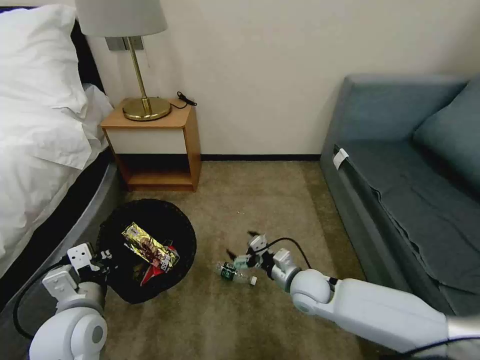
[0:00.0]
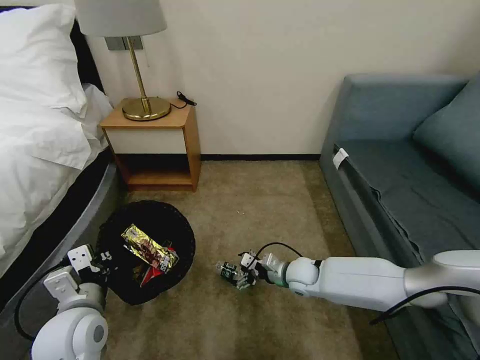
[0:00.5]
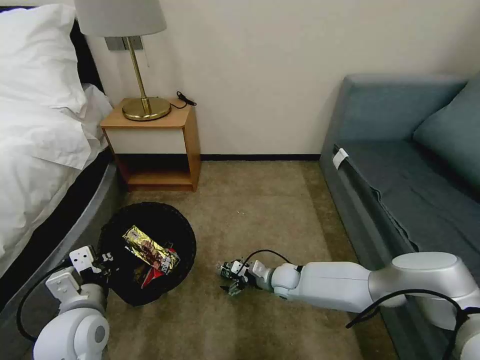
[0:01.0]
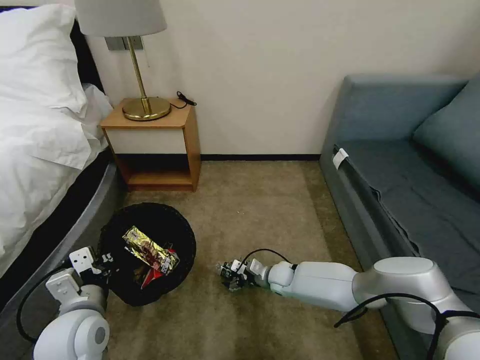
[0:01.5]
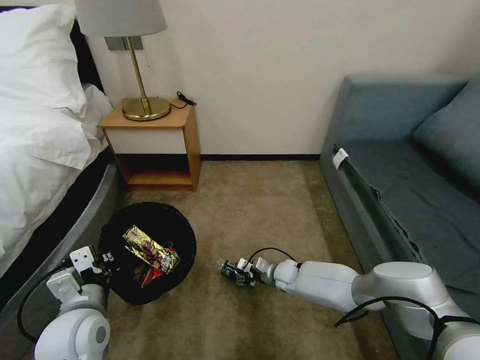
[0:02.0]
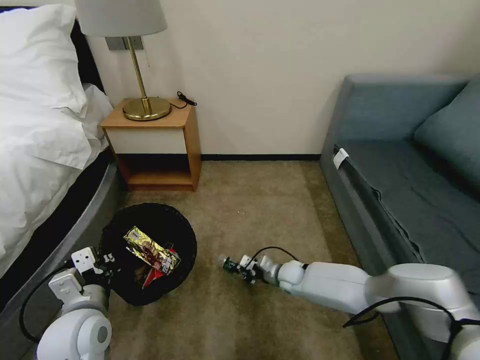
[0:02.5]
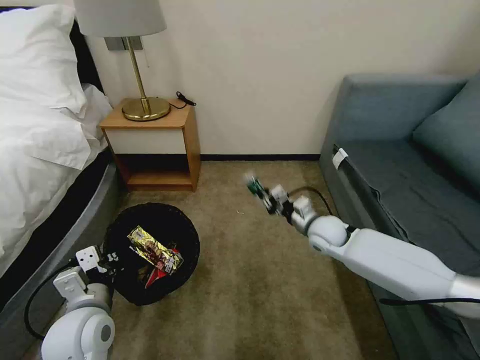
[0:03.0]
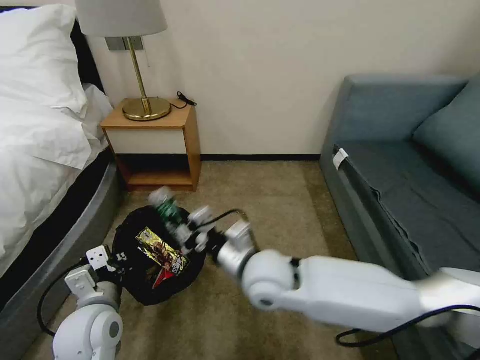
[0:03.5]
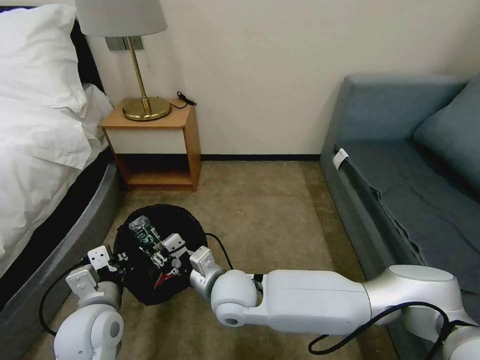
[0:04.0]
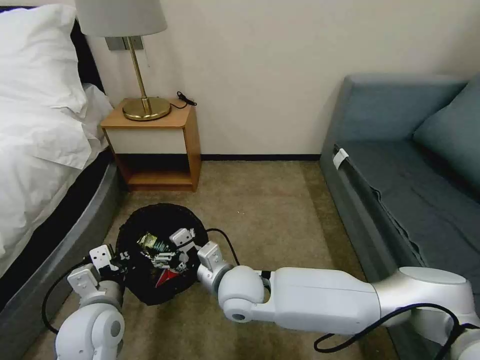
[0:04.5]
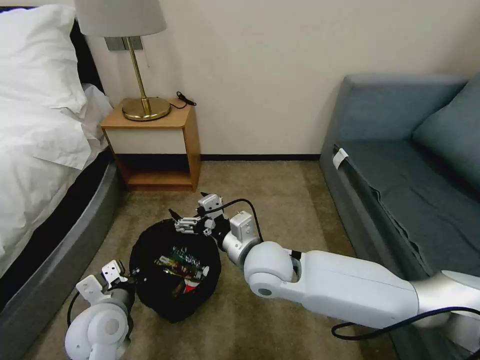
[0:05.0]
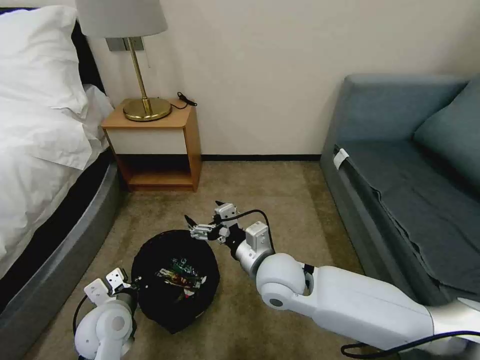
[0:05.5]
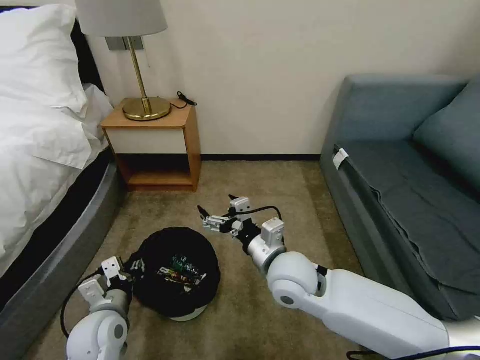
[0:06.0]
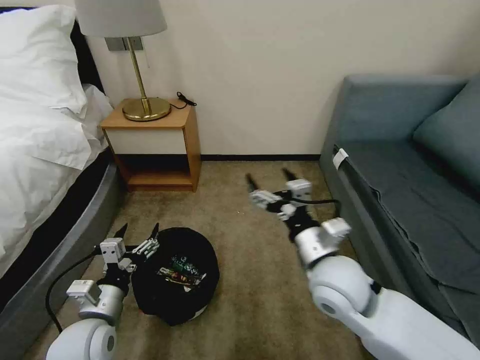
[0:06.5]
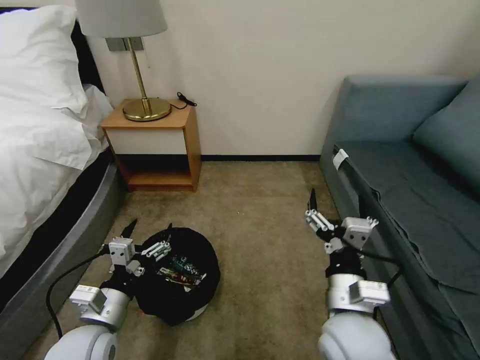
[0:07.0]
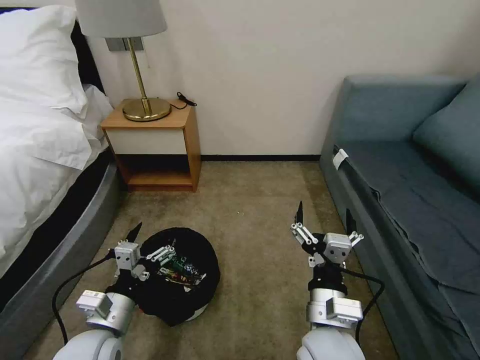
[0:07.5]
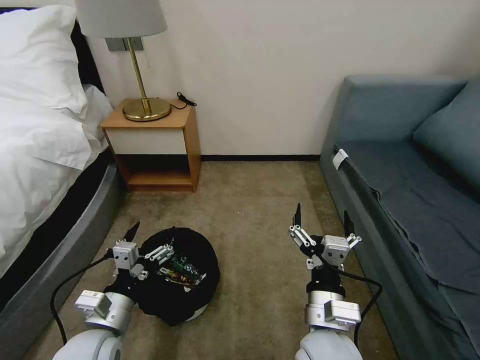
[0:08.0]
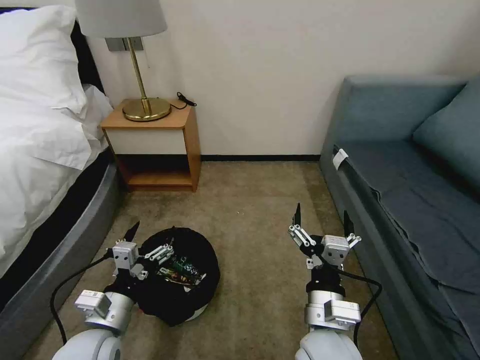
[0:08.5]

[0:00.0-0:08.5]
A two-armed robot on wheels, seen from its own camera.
Task of the whole recording: Pick up the trash bin, then pick up the garbage on the floor and place it into the trash bin.
0:00.0 to 0:02.0: The right gripper is displaced downward and forward by approximately 15 cm, and closes.
0:02.0 to 0:04.0: The right gripper moves upward, to the left and backward, roughly 35 cm.
0:04.0 to 0:06.5: The right gripper heads to the right and upward, covering roughly 20 cm, and opens up; the left gripper opens up.
0:06.5 to 0:08.5: The right gripper moves backward and downward, roughly 10 cm.

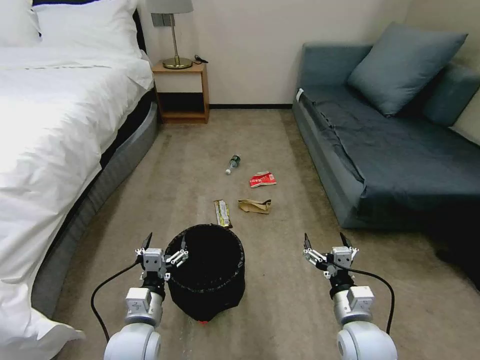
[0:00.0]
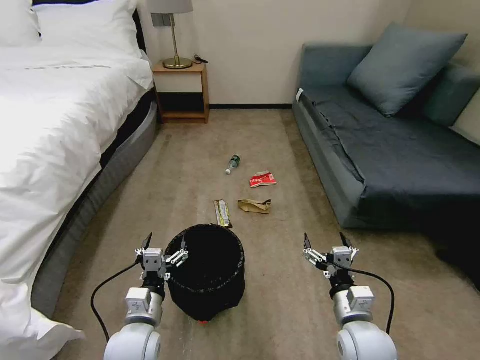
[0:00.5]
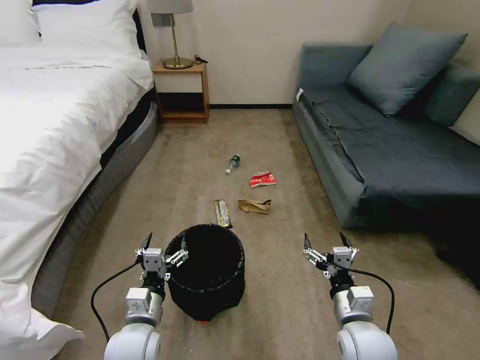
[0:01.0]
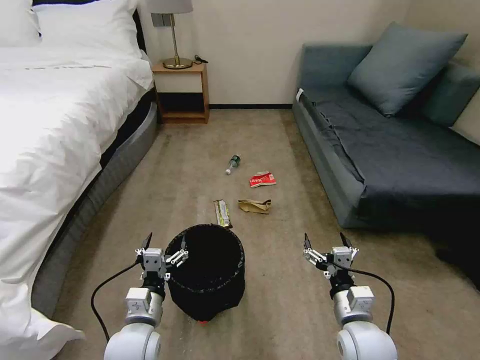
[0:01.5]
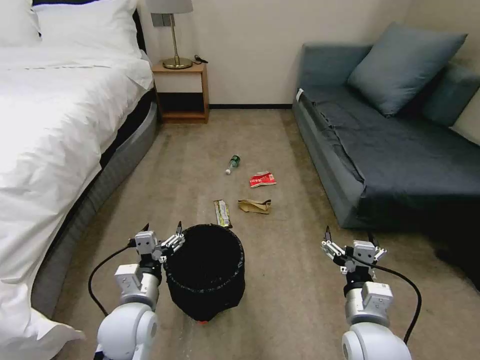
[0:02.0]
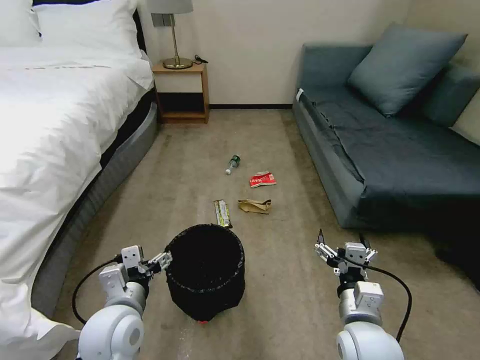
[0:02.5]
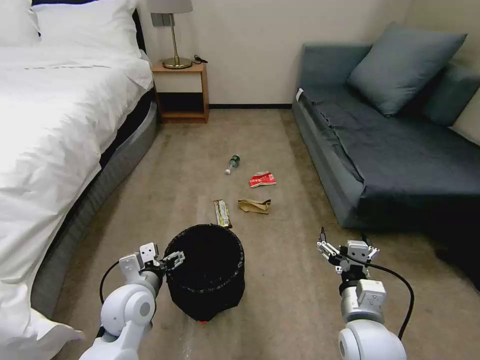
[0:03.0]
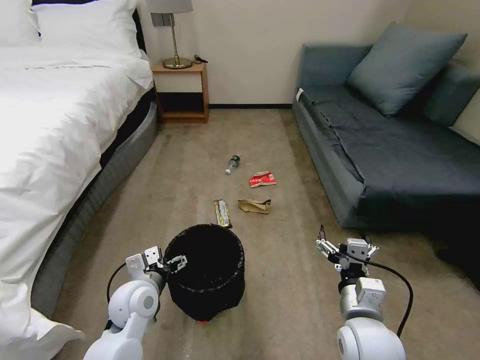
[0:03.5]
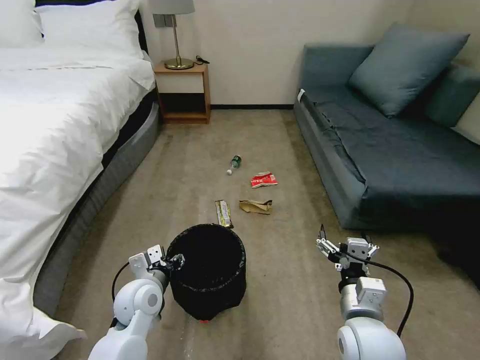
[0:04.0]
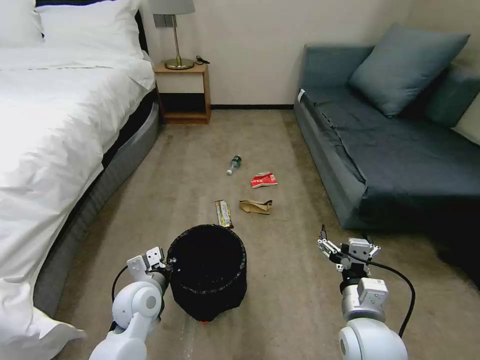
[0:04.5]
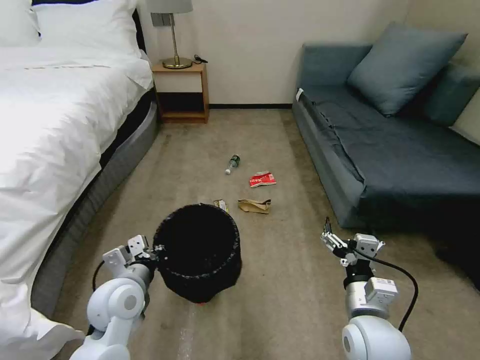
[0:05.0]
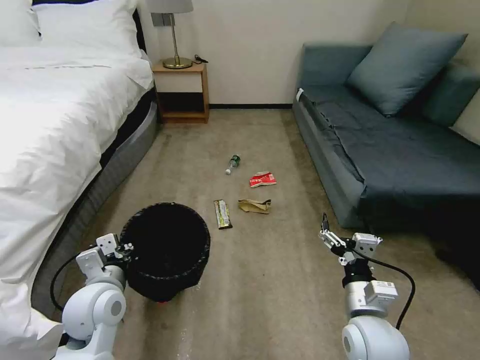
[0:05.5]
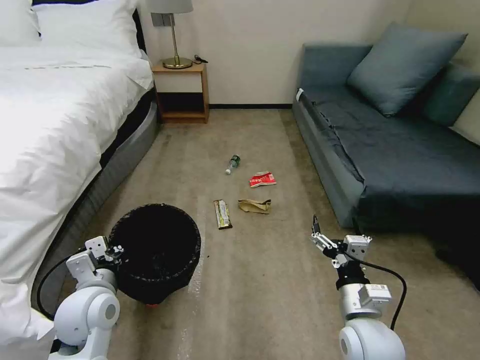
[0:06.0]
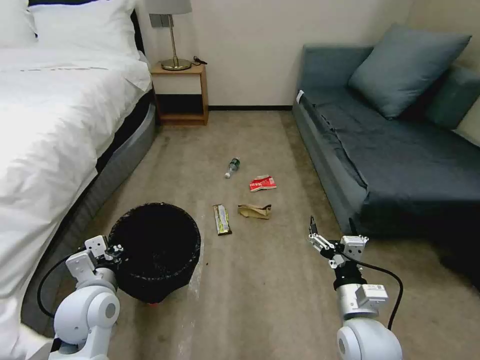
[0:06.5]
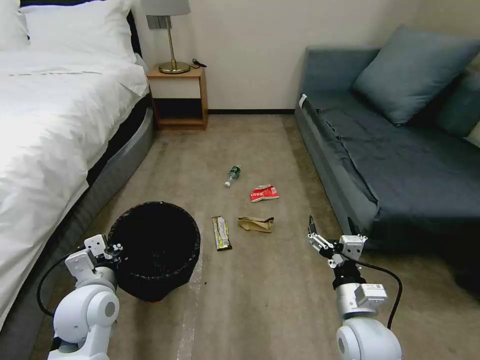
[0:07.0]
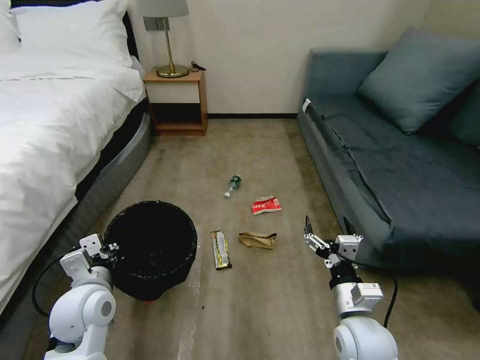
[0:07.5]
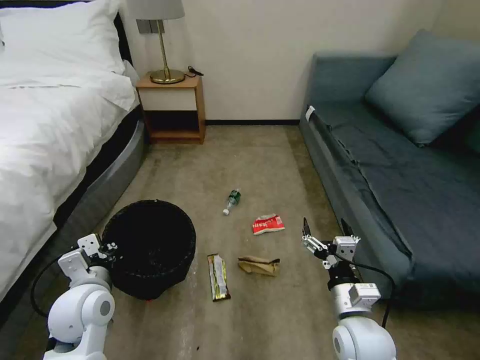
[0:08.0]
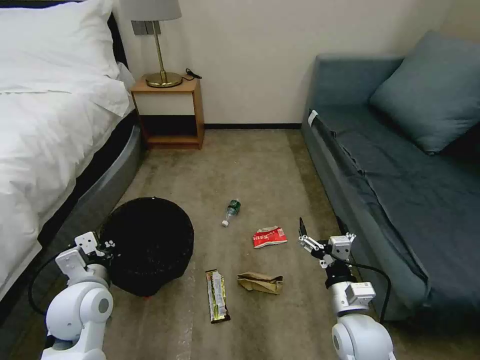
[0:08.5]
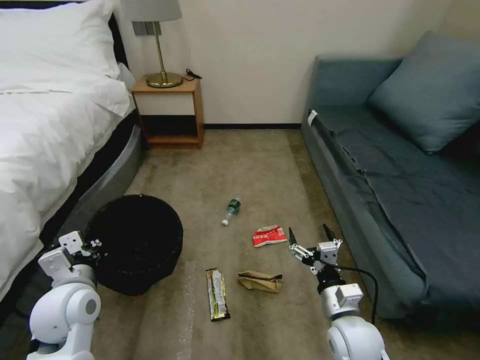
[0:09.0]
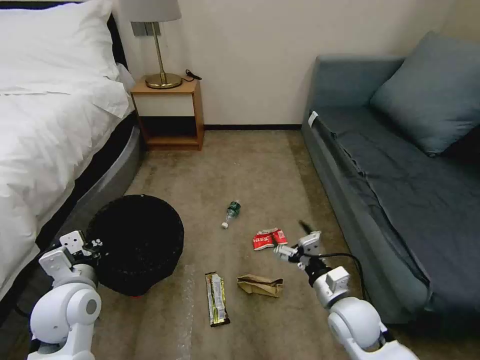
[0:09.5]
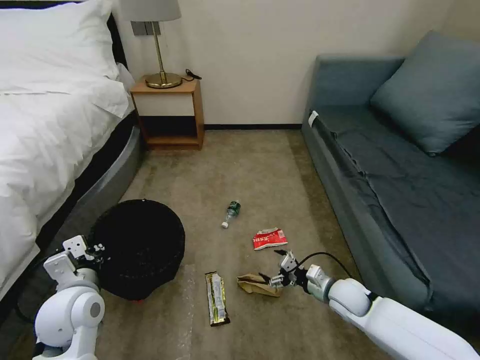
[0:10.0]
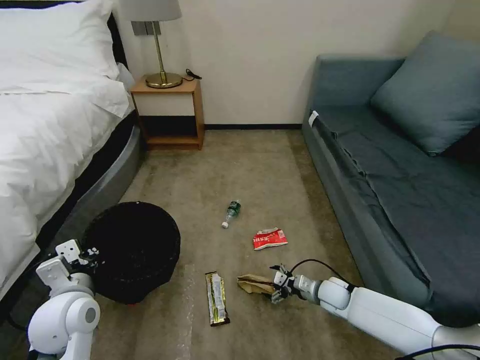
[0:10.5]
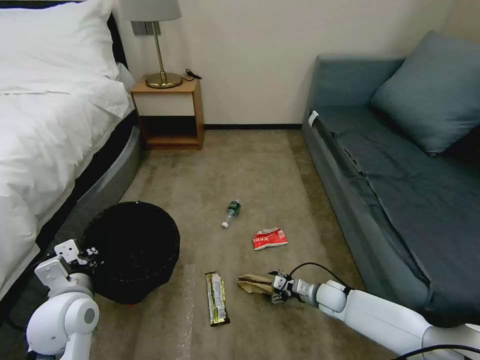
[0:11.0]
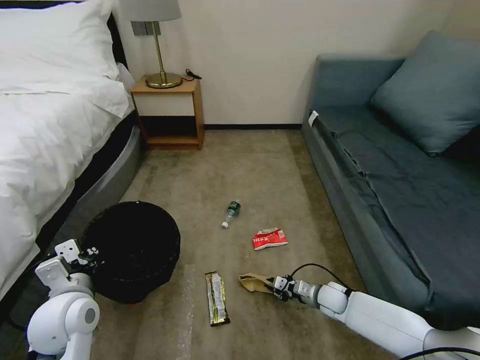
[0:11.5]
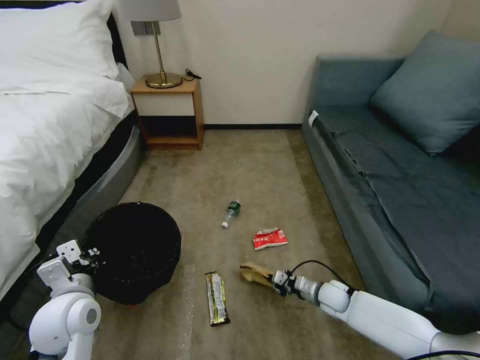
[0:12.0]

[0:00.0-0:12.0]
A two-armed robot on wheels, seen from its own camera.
Task of the whole recording: Pick up the trash bin, then pick up the garbage on the floor and place it into the trash bin.
0:02.0 to 0:04.0: The left gripper heads forward, covering approximately 5 cm, and closes up.
0:04.0 to 0:06.0: The left gripper goes approximately 10 cm upward and to the left, and closes its fingers.
0:08.0 to 0:10.0: The right gripper heads forward, downward and to the right, covering about 15 cm.
0:10.0 to 0:12.0: The right gripper moves downward, approximately 10 cm, and closes its fingers.

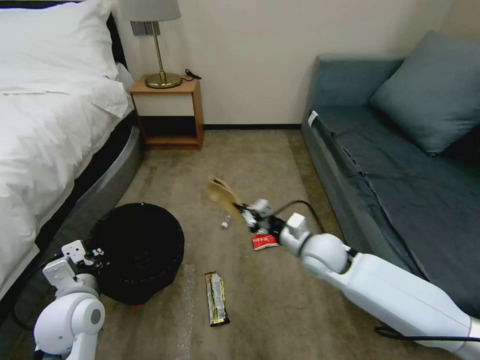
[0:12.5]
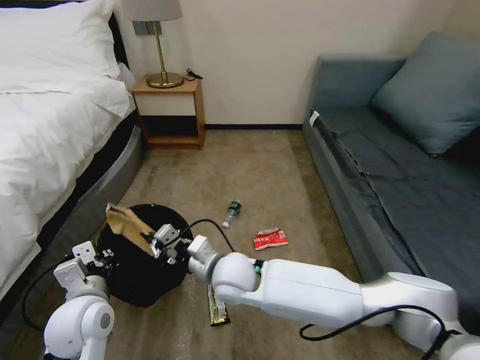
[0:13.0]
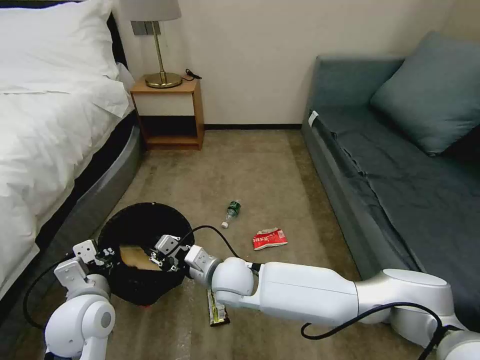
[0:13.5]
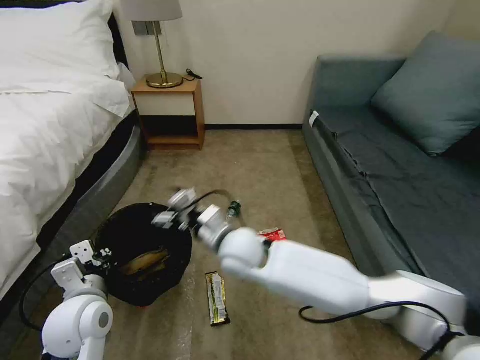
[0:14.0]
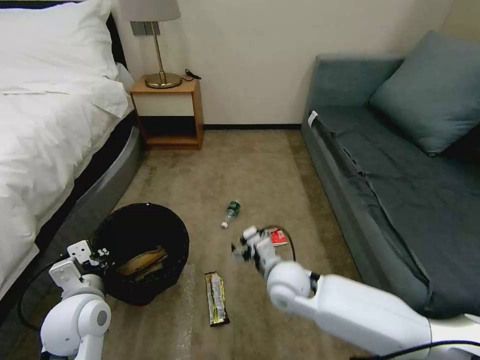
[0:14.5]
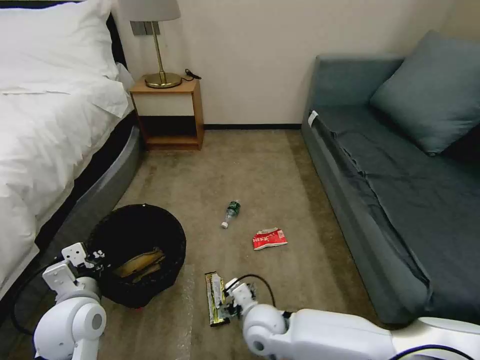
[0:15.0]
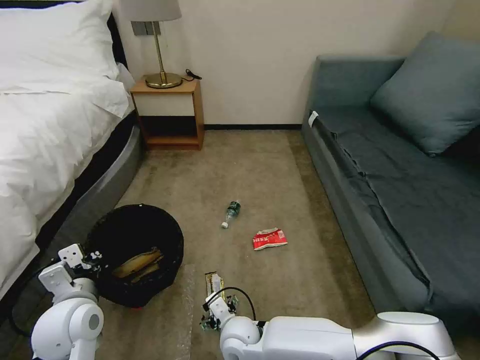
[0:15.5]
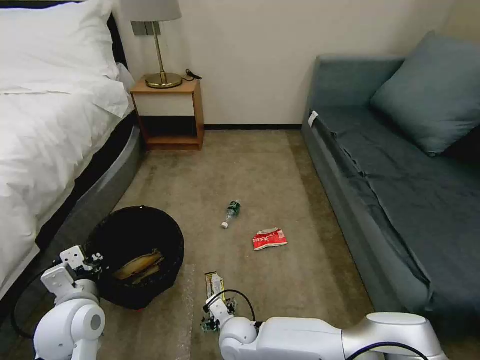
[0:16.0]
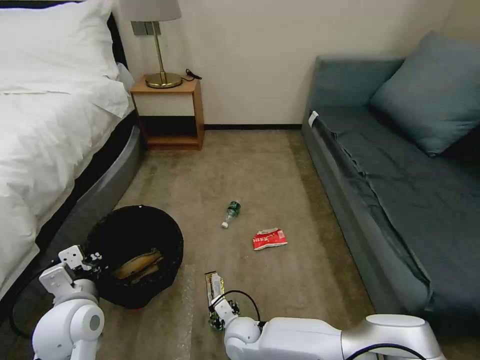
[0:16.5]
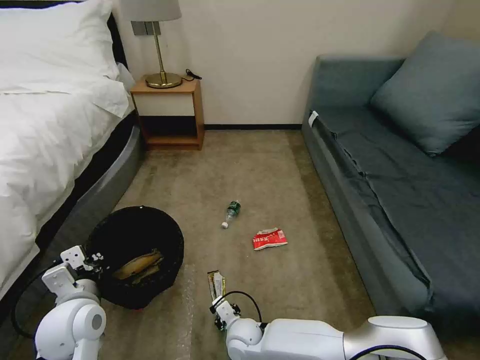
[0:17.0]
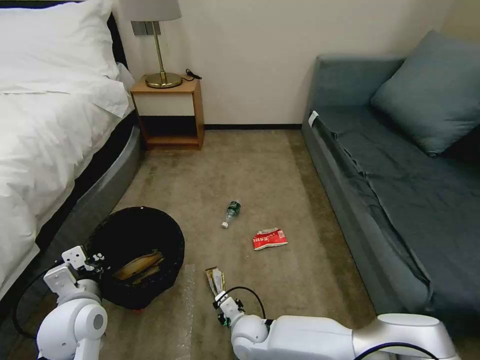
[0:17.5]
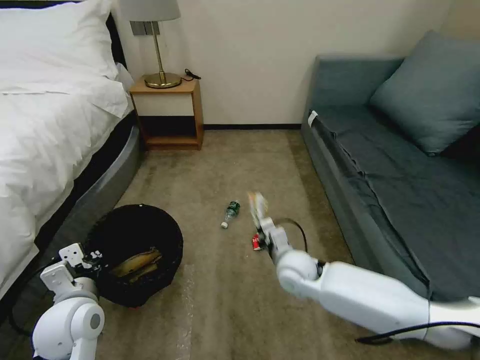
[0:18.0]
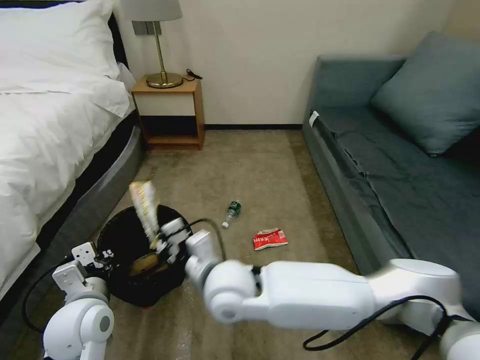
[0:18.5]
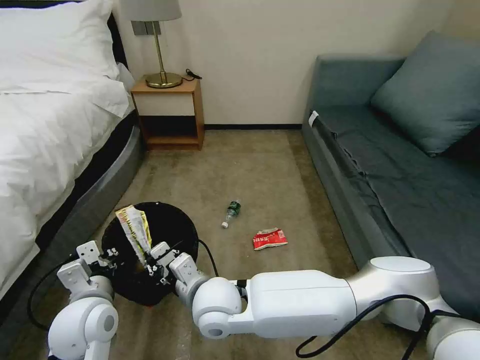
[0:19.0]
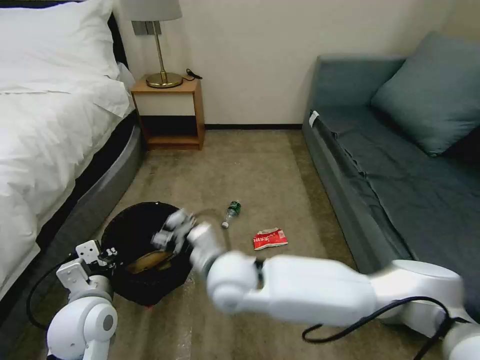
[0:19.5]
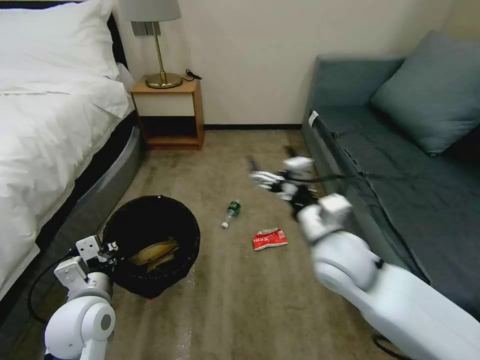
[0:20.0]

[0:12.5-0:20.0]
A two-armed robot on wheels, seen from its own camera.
Task of the whole recording: Pick up the trash bin, then pick up the garbage on the floor and place it into the trash bin.
0:12.5 to 0:14.5: The right gripper shifts approximately 10 cm to the left and backward, and opens up.
0:14.5 to 0:16.5: The right gripper shifts approximately 20 cm downward and to the left.
0:16.5 to 0:18.0: The right gripper is displaced upward, to the right and forward by about 20 cm, and closes its fingers.
0:18.0 to 0:20.0: The right gripper goes approximately 20 cm upward, travels to the left and back again, approximately 20 cm each way, and opens its fingers.
